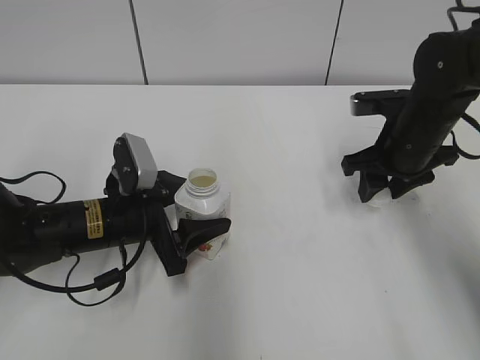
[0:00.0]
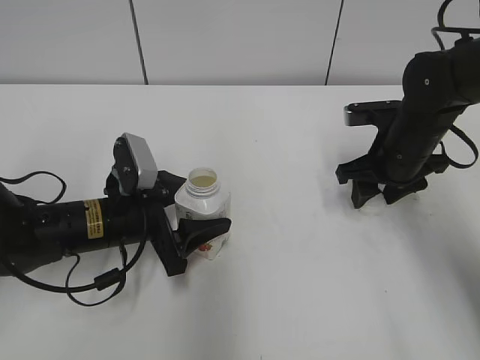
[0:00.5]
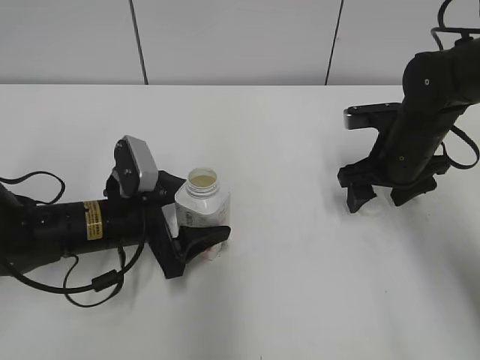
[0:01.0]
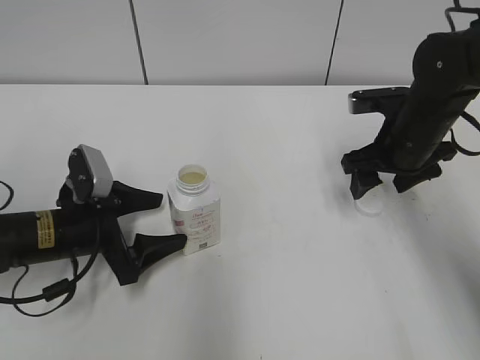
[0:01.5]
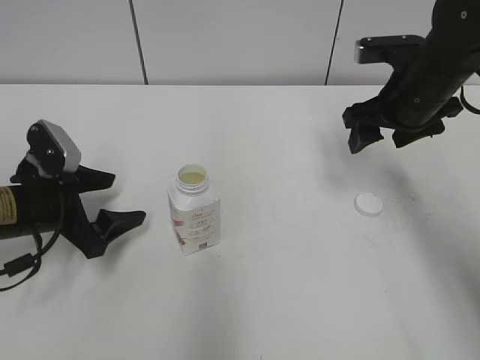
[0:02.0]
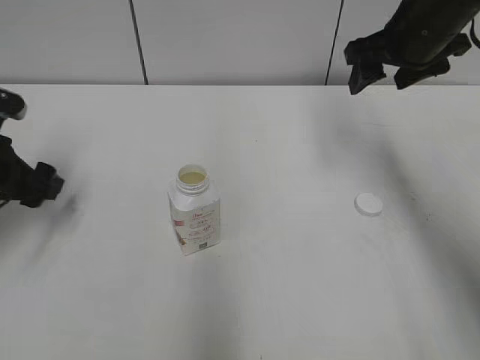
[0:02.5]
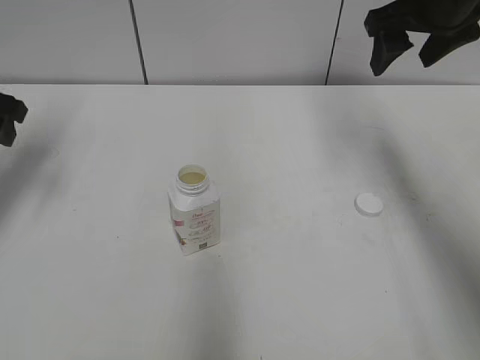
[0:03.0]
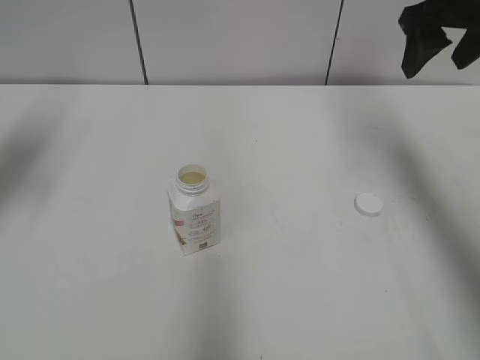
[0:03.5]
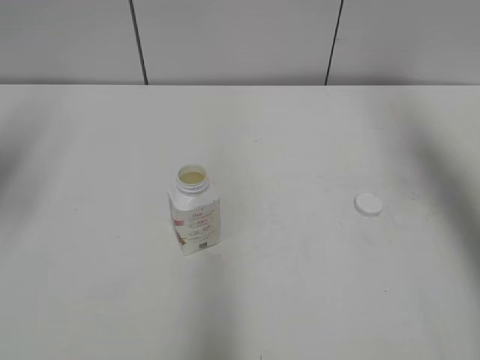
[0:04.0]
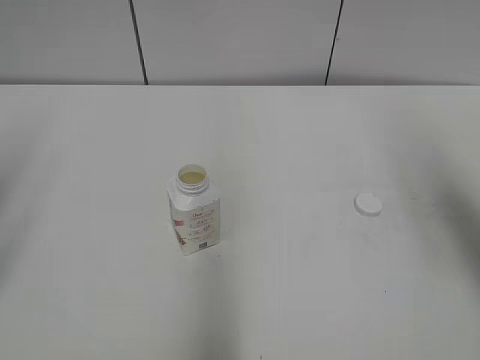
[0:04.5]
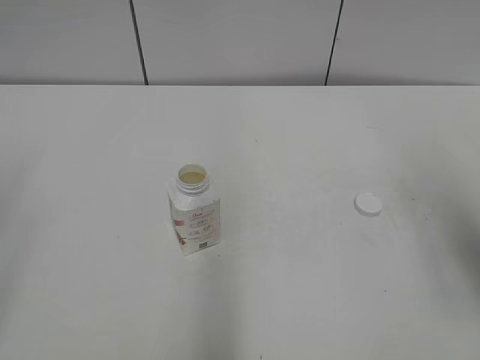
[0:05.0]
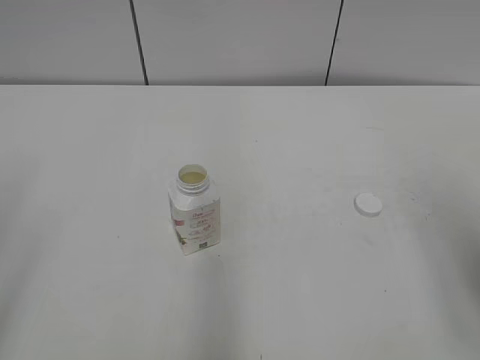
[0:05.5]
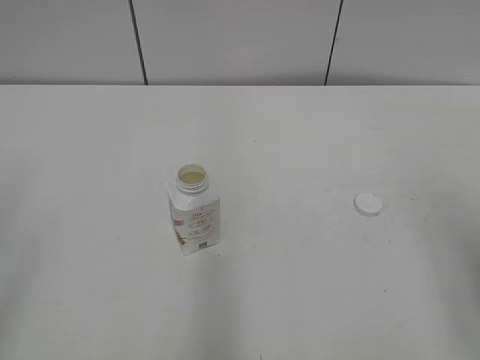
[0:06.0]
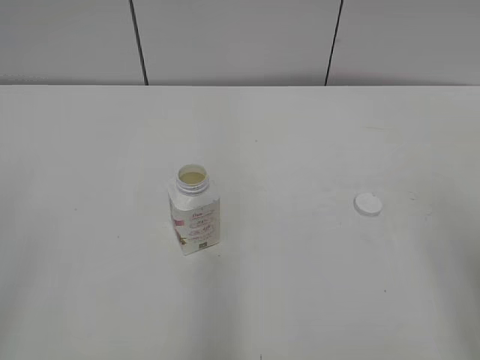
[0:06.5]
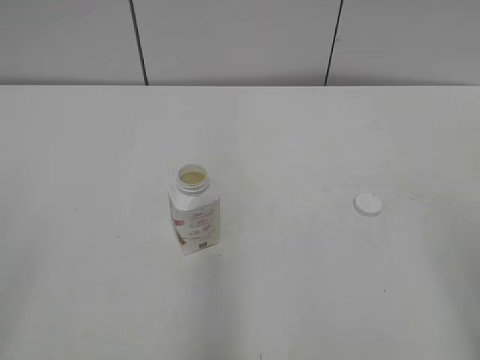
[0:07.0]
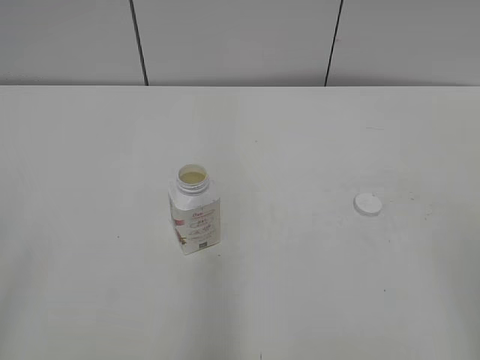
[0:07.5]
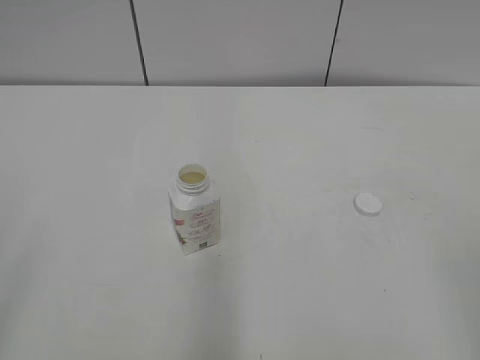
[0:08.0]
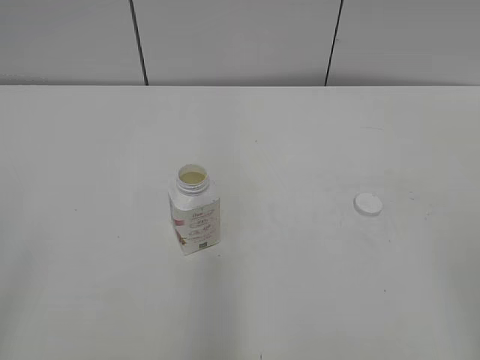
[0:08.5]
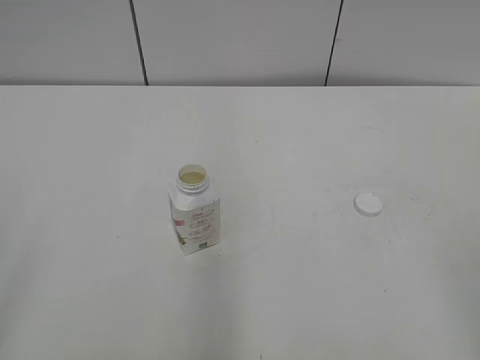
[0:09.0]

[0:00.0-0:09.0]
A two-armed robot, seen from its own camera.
0:00.0 to 0:02.0: The right gripper is displaced upward by some 5 cm, and opens up. Meanwhile the left gripper shifts some 10 cm to the left, and opens its fingers.
0:02.0 to 0:04.5: The right gripper is displaced backward, upward and to the right by some 20 cm; the left gripper moves upward, backward and to the left, about 25 cm.
0:04.5 to 0:07.0: The right gripper travels backward by about 15 cm.
